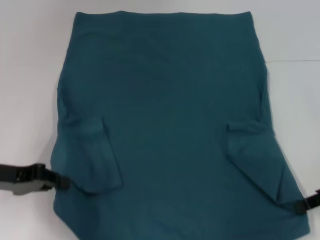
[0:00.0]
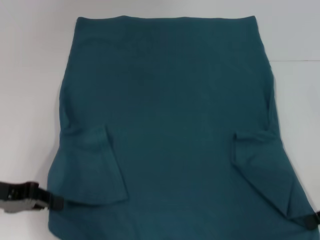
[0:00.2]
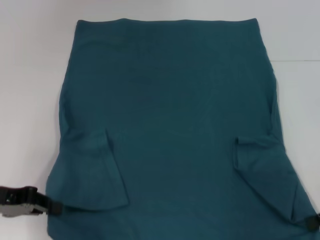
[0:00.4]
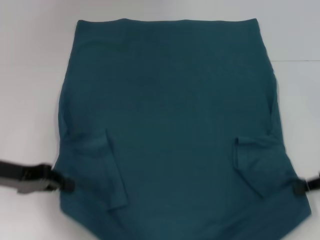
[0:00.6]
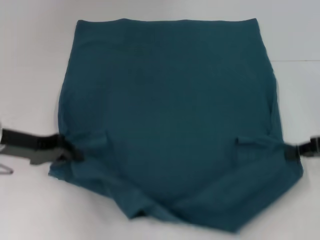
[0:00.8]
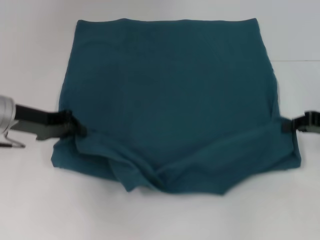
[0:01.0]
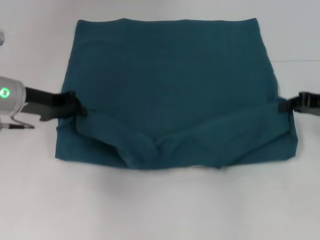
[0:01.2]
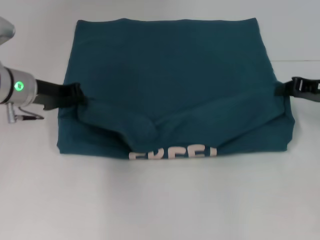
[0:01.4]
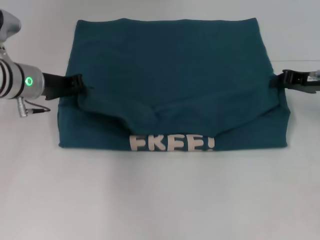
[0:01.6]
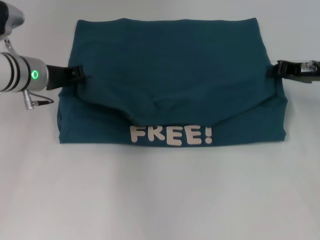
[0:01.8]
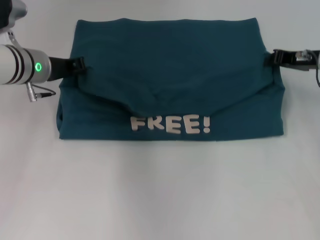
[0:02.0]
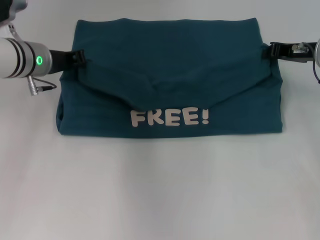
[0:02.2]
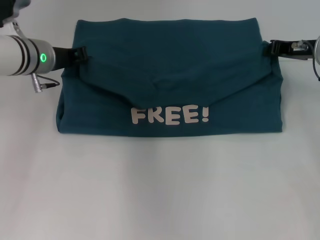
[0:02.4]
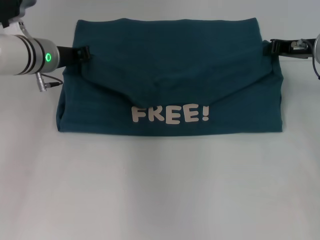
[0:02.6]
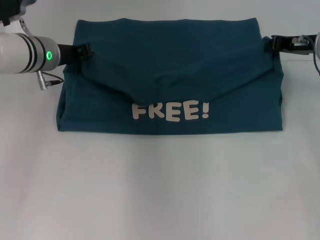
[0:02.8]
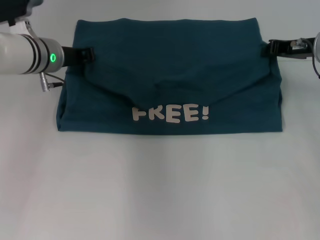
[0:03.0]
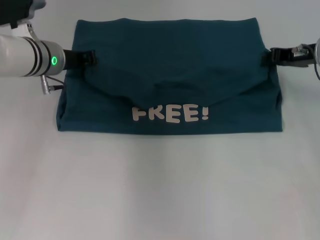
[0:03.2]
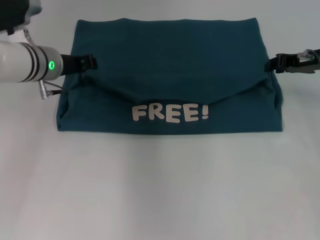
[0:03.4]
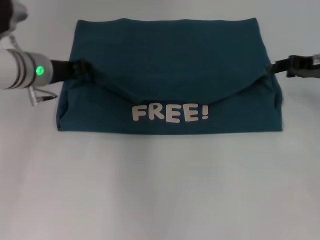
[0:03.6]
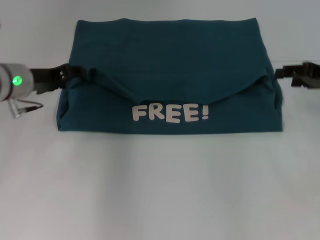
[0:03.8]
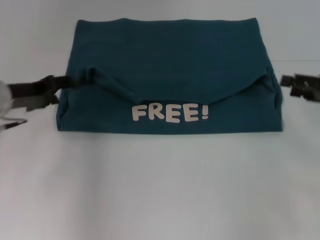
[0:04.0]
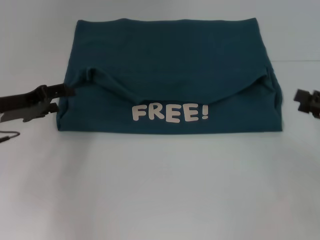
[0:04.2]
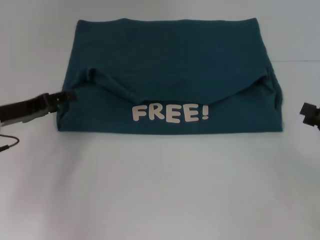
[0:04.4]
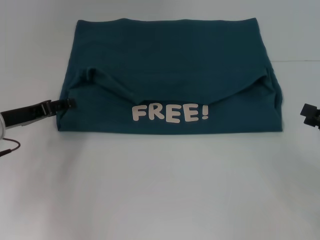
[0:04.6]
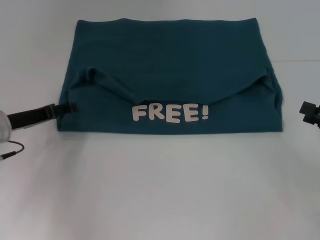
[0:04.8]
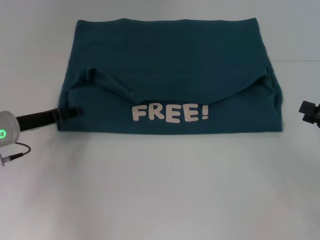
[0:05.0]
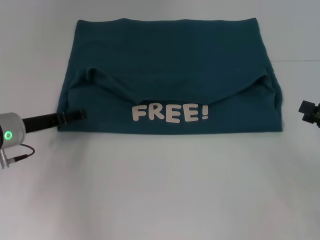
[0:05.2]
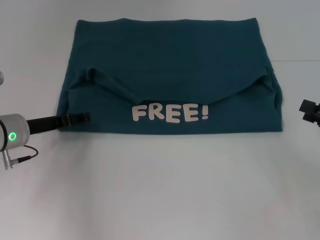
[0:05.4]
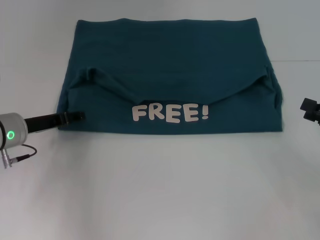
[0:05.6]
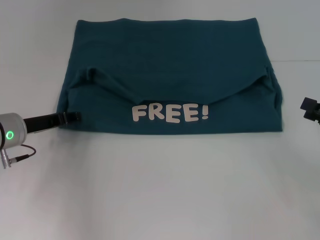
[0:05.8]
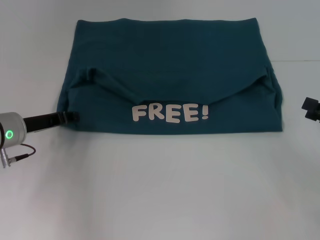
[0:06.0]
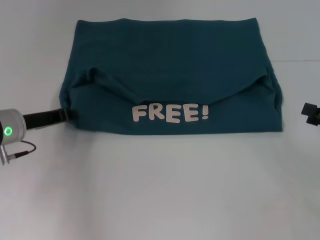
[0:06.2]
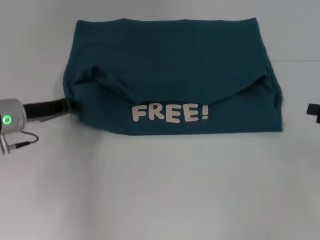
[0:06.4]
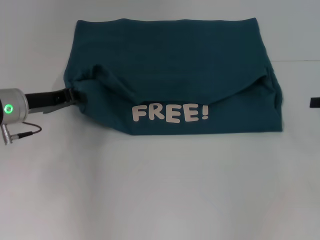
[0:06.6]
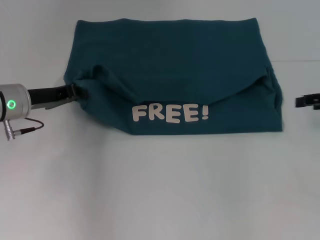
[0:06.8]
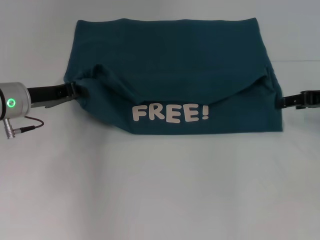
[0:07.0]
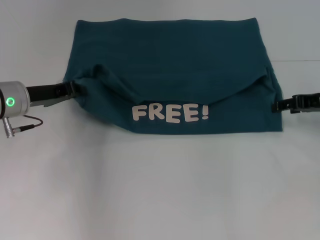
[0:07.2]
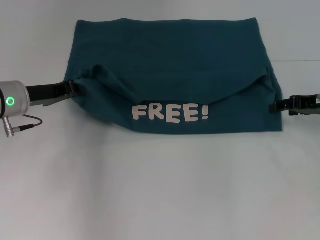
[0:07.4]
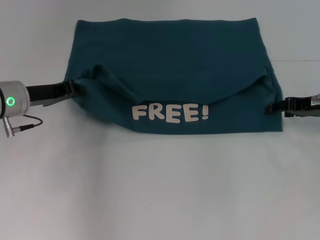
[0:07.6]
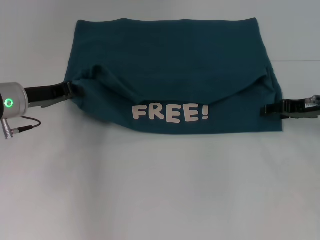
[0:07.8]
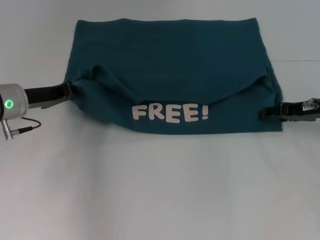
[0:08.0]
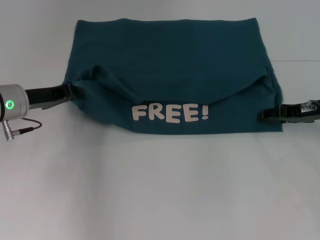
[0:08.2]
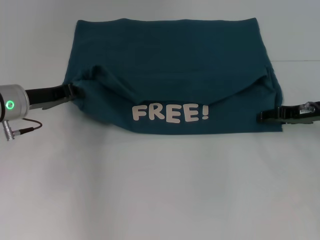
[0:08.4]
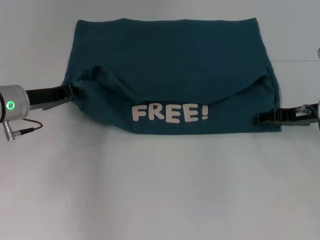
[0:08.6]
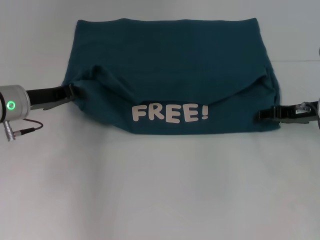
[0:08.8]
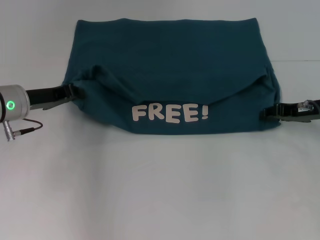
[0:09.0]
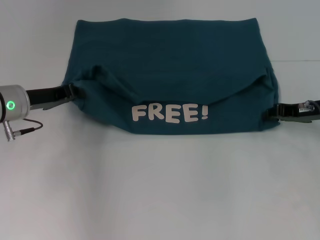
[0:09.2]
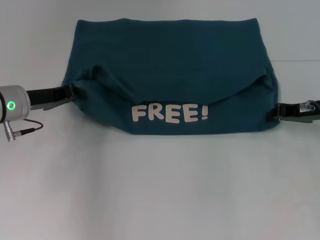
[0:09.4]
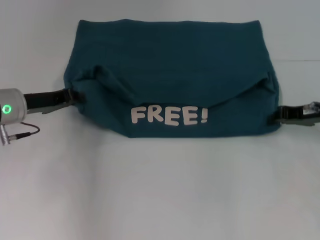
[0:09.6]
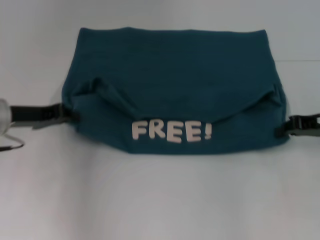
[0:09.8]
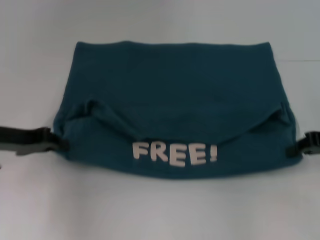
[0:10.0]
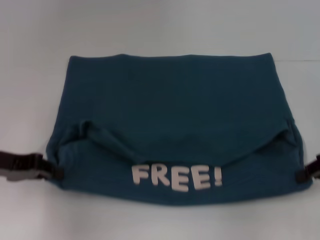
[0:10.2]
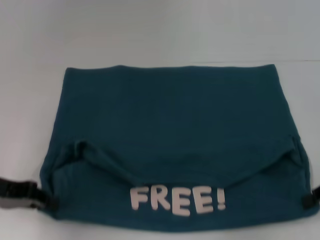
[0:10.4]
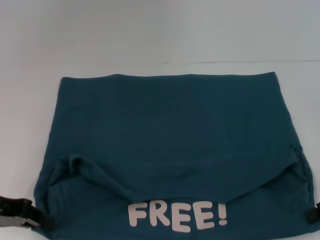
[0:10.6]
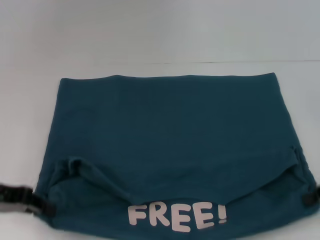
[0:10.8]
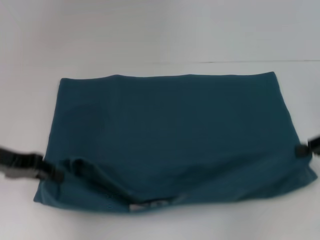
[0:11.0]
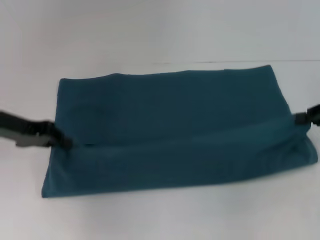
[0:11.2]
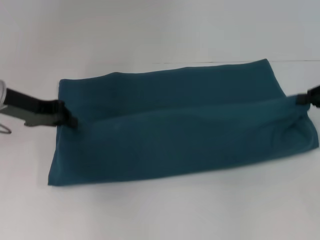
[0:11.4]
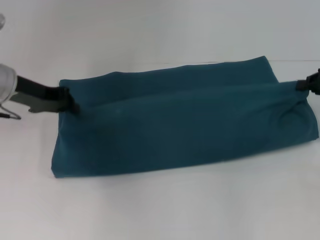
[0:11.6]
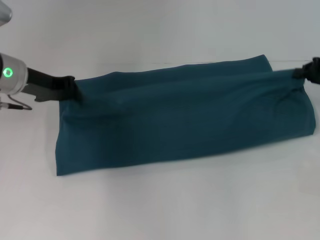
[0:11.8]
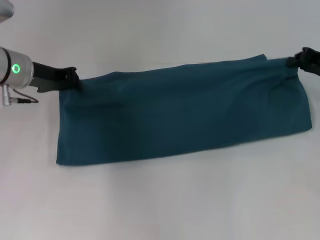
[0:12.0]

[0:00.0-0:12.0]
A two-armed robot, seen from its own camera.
Step, 0:00.0 to 0:03.8: Fold the clothes to the left.
Step, 0:00.0 to 0:03.8: Fold the clothes to the right.
Step, 0:04.0 to 0:10.8: Pull the clothes with your left hand.
Step, 0:04.0 to 0:10.8: Pull the clothes with your right hand.
0:00.0 to 0:01.6: The left gripper moves forward and to the right, approximately 15 cm. The right gripper goes approximately 10 cm forward.
0:01.6 to 0:03.0: The right gripper moves roughly 5 cm, while the left gripper ends up roughly 5 cm from where it was.
0:03.0 to 0:04.4: The right gripper heads backward and to the right, covering roughly 20 cm, and opens up; the left gripper is displaced backward and to the left by about 15 cm, and opens.
0:04.4 to 0:06.0: The left gripper closes its fingers.
0:06.0 to 0:07.6: The left gripper changes place by about 5 cm, and closes up. The right gripper travels forward and to the left by some 15 cm.
0:07.6 to 0:09.0: The grippers stay close to where they were, moving slightly.
0:09.0 to 0:10.4: The right gripper shifts roughly 10 cm backward and to the right, and closes its fingers, while the left gripper shifts some 10 cm backward and to the left.
0:10.4 to 0:12.0: The left gripper is displaced forward and to the right by some 15 cm, while the right gripper moves forward, about 10 cm.

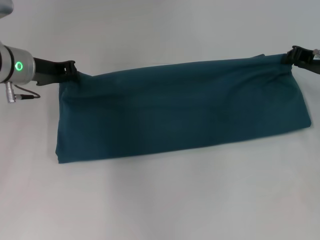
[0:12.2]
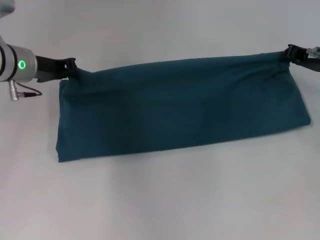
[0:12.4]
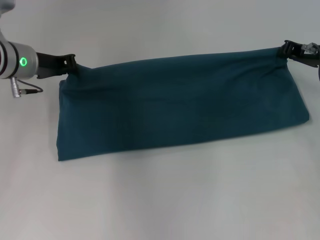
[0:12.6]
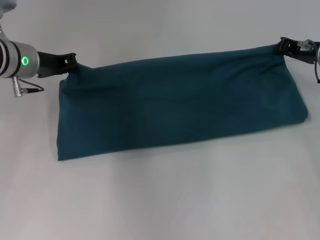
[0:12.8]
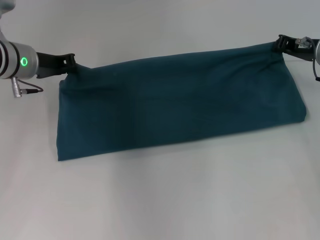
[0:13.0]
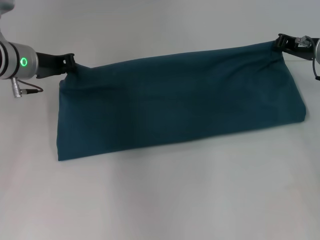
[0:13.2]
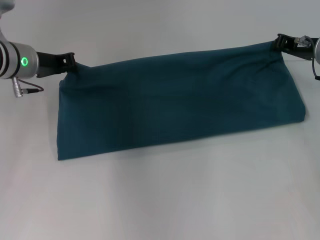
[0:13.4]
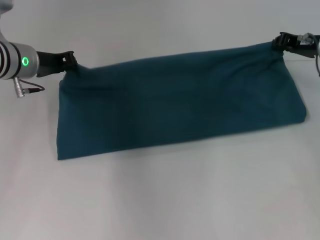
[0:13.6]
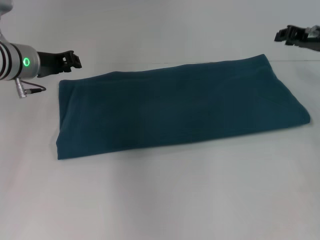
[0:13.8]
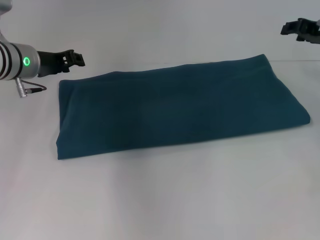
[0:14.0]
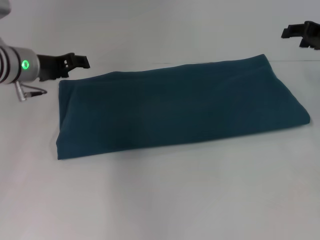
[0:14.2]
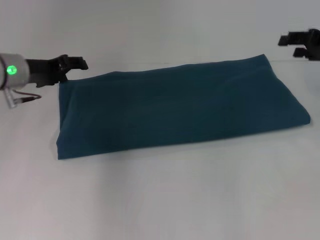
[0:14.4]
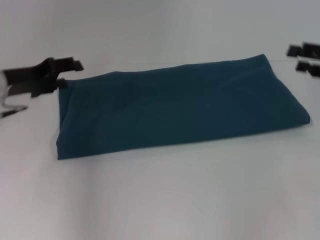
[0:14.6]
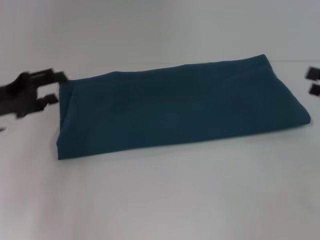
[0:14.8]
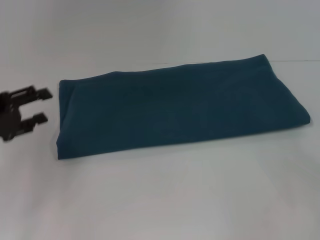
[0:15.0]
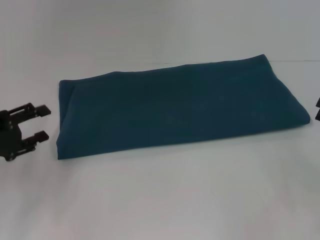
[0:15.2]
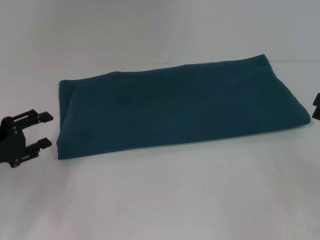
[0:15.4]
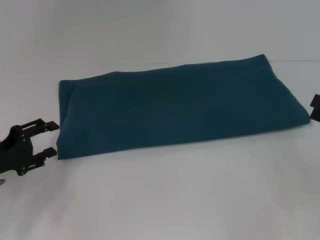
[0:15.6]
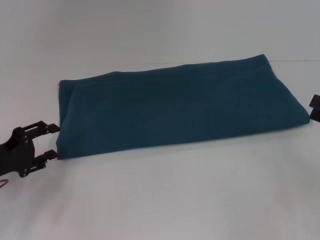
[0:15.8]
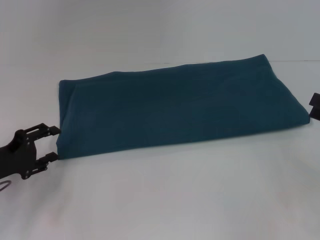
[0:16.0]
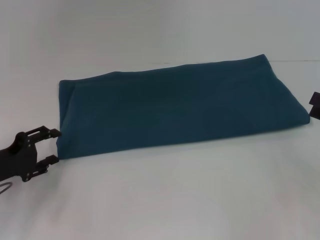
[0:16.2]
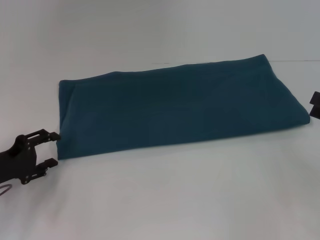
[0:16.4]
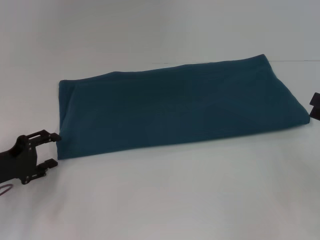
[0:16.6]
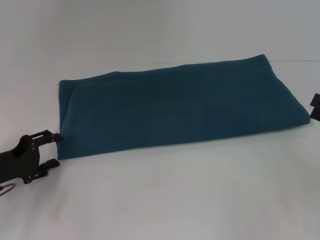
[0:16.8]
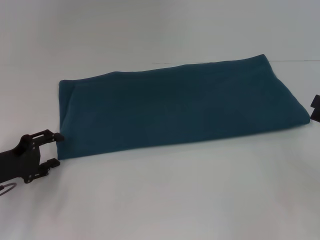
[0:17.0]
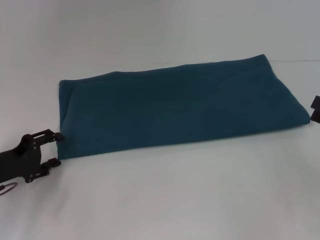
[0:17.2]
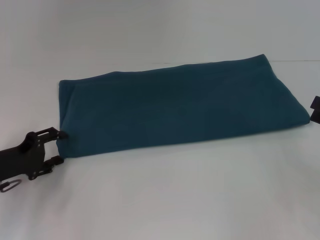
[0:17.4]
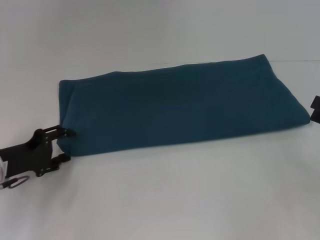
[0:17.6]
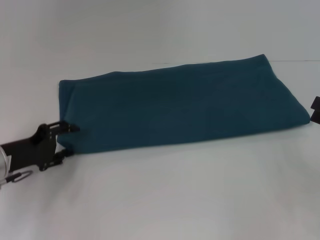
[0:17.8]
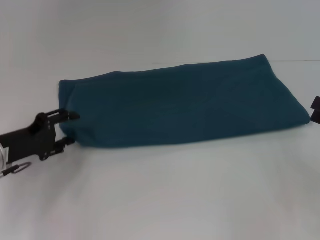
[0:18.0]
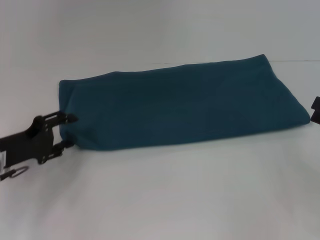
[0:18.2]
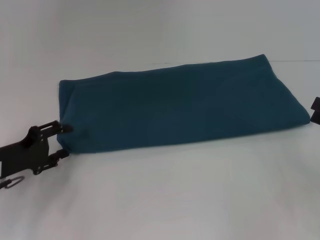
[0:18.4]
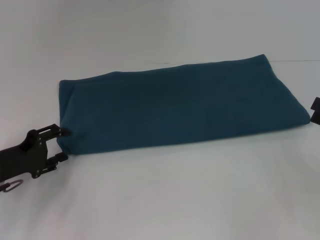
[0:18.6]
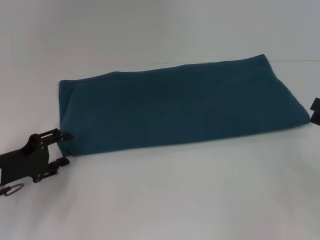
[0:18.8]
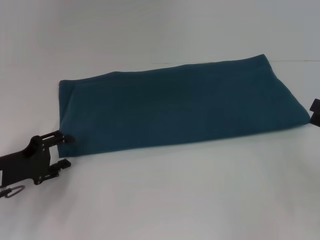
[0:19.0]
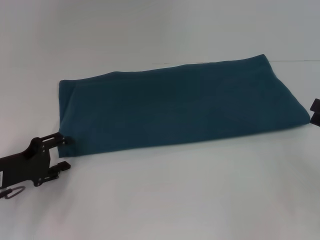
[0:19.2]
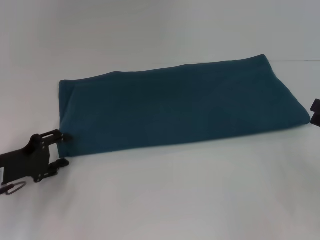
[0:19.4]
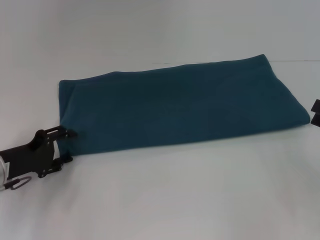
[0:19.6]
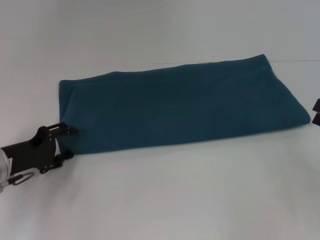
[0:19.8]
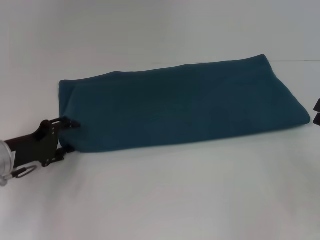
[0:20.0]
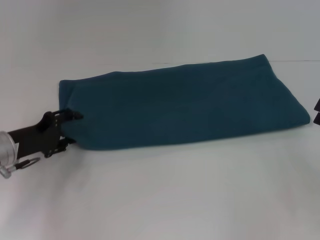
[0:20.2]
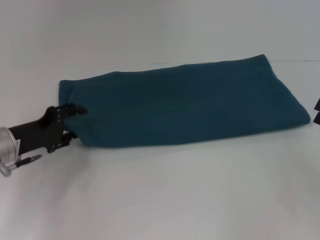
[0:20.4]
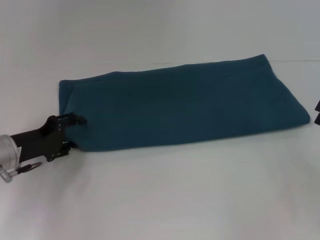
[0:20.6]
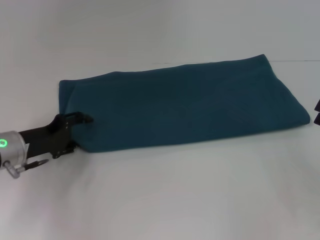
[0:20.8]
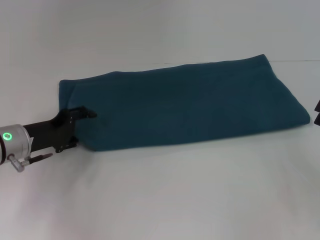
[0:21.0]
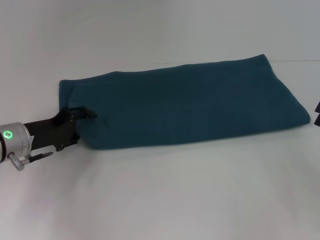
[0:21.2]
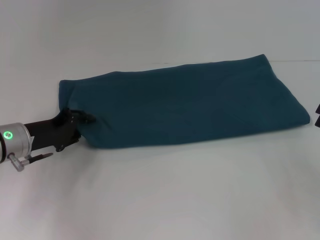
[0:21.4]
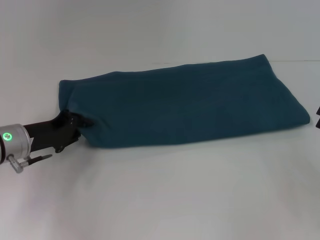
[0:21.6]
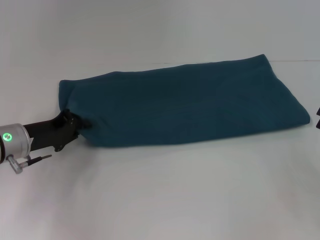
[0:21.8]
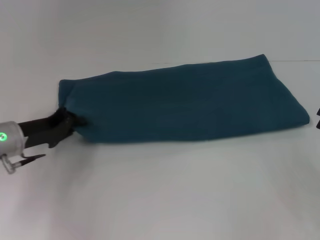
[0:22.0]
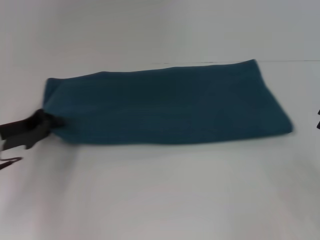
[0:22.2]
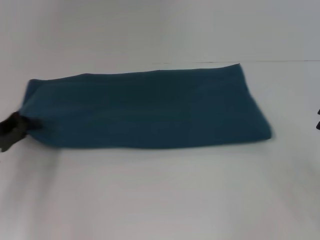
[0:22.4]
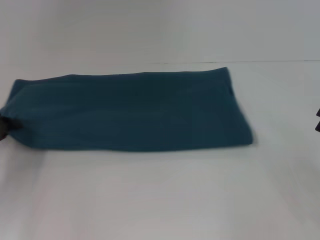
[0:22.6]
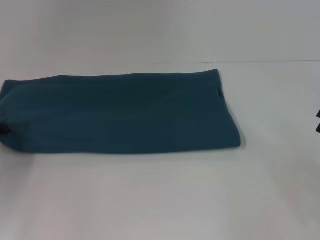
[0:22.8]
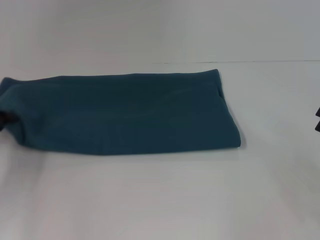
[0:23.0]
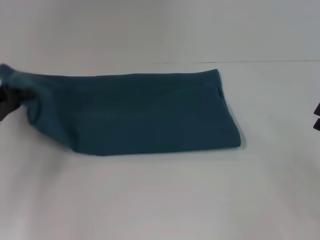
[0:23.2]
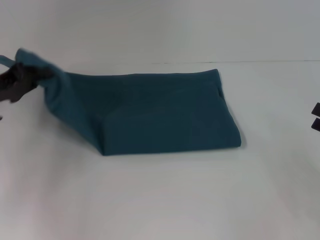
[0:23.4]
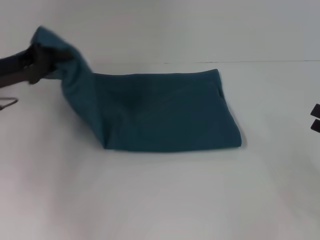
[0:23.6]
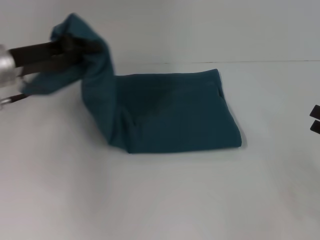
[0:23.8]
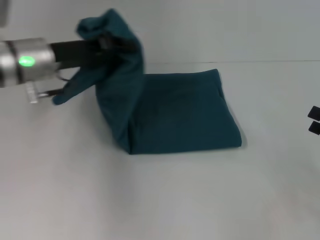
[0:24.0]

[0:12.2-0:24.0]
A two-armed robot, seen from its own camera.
Step, 0:12.2 to 0:13.8: Fold the clothes to the right.
0:12.2 to 0:13.6: The grippers make only small movements.
0:13.6 to 0:15.2: The right gripper shifts approximately 20 cm backward and to the right, and opens up. Meanwhile the left gripper heads backward and to the left, covering some 20 cm, and opens its fingers.
0:15.2 to 0:16.6: The left gripper changes place by some 5 cm.
0:16.6 to 0:19.6: The grippers stay close to where they were, moving slightly.
0:19.6 to 0:21.0: The left gripper moves roughly 5 cm.
0:21.0 to 0:22.6: The left gripper moves to the left, approximately 10 cm, and closes its fingers.
0:22.6 to 0:24.0: The left gripper moves to the right, upward and forward, some 20 cm.
